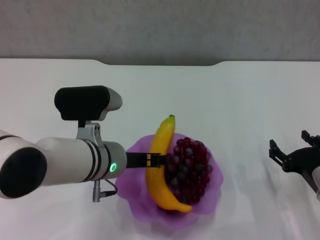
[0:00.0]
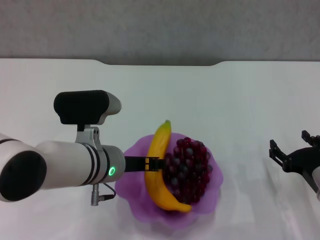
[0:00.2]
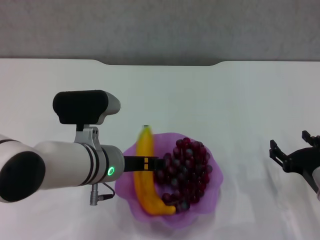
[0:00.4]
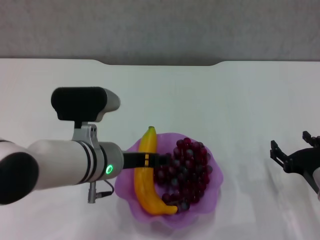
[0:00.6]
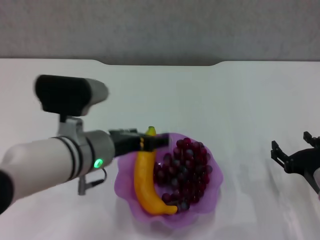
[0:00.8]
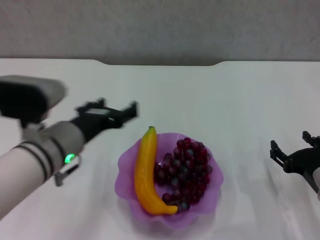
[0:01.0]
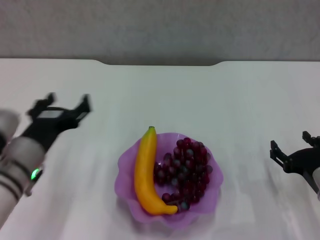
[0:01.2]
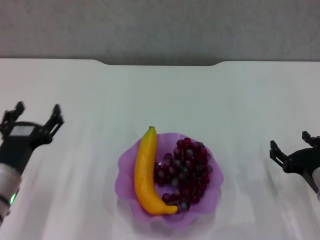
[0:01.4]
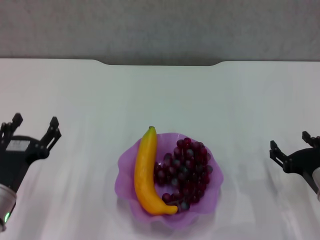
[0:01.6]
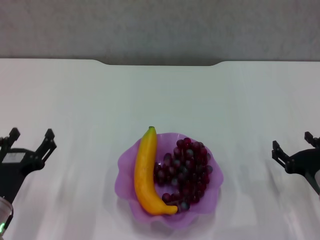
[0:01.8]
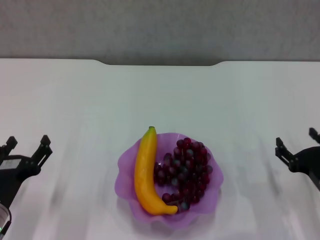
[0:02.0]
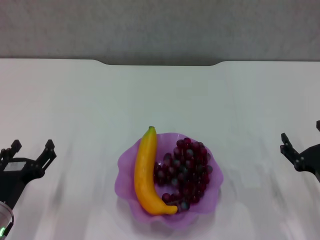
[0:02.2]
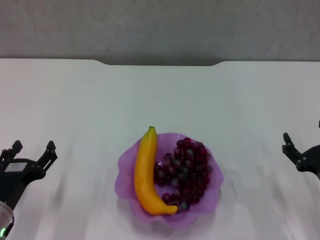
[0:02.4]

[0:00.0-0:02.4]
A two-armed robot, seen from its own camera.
0:00.0 to 0:01.2: The left gripper travels to the left by about 10 cm, and opens its fingers.
0:01.2 to 0:02.4: The left gripper goes approximately 10 cm downward, backward and to the left.
